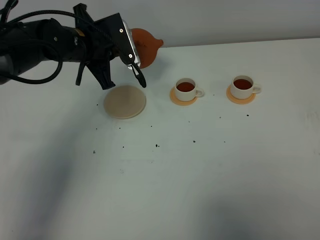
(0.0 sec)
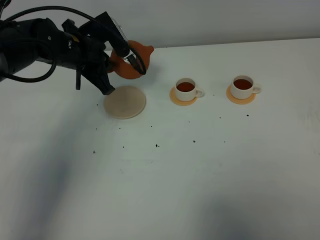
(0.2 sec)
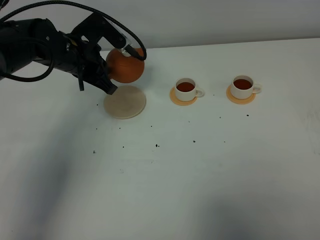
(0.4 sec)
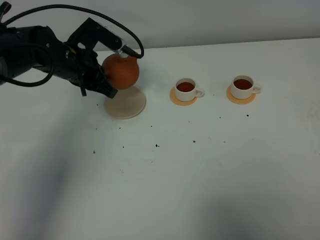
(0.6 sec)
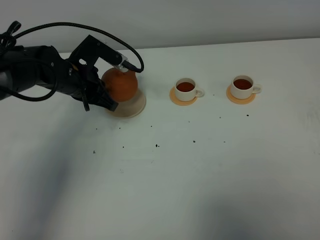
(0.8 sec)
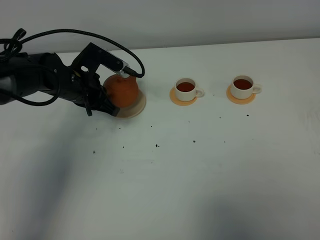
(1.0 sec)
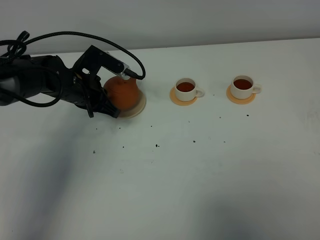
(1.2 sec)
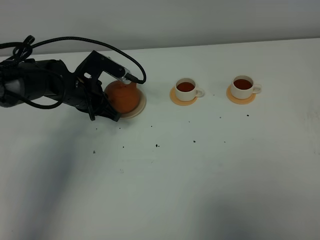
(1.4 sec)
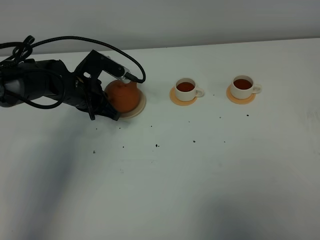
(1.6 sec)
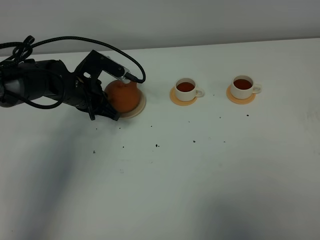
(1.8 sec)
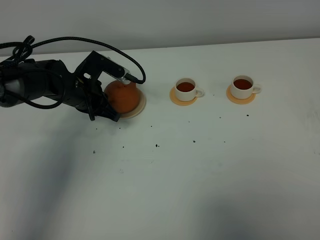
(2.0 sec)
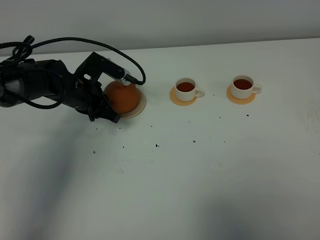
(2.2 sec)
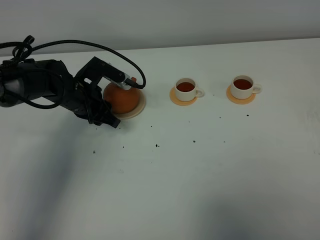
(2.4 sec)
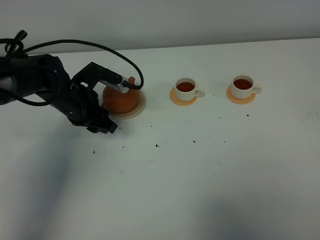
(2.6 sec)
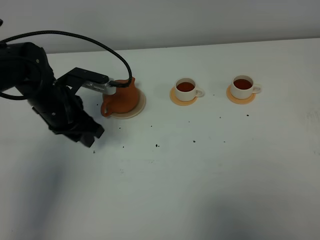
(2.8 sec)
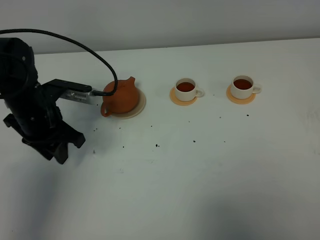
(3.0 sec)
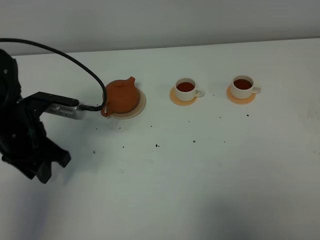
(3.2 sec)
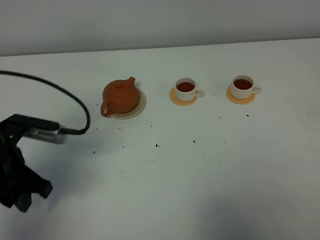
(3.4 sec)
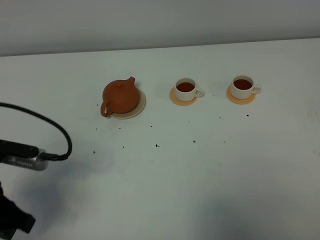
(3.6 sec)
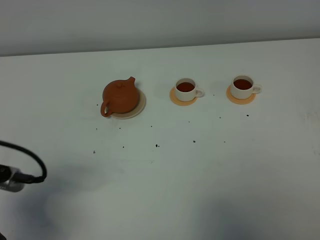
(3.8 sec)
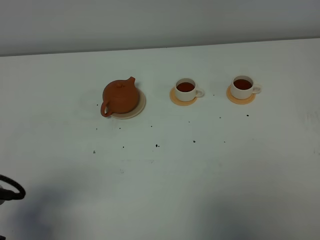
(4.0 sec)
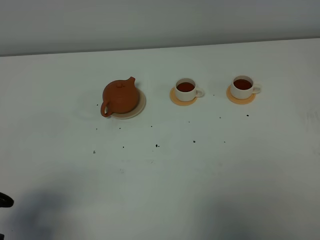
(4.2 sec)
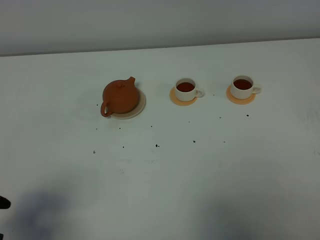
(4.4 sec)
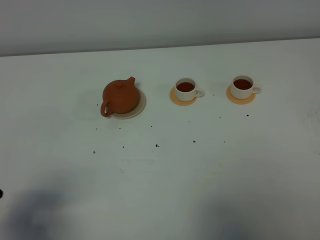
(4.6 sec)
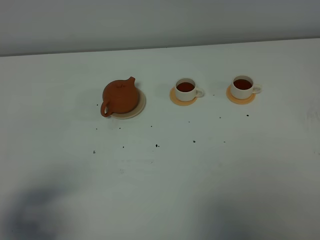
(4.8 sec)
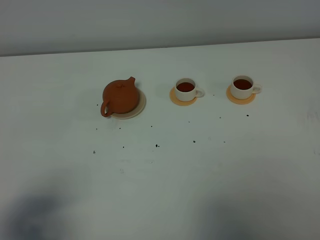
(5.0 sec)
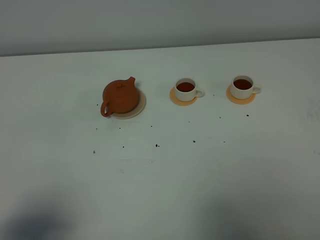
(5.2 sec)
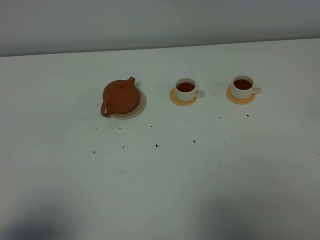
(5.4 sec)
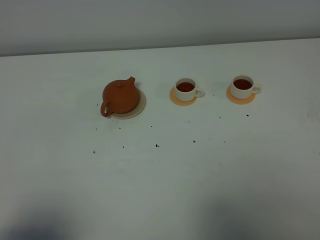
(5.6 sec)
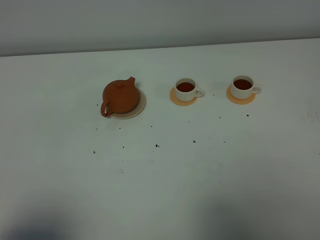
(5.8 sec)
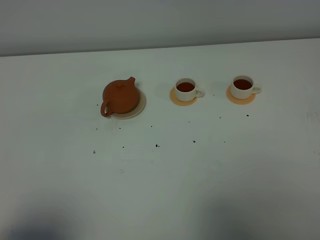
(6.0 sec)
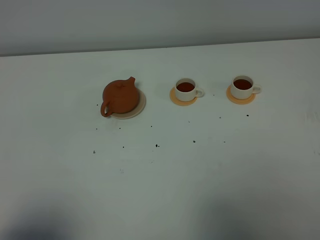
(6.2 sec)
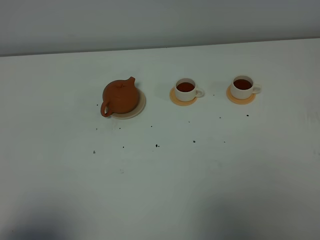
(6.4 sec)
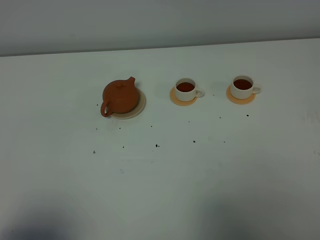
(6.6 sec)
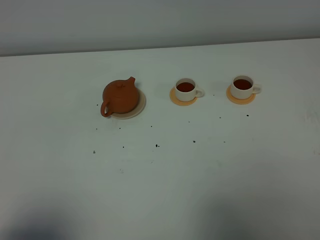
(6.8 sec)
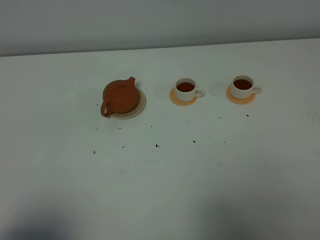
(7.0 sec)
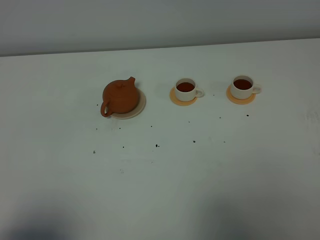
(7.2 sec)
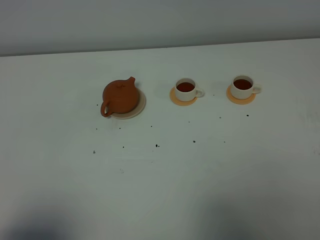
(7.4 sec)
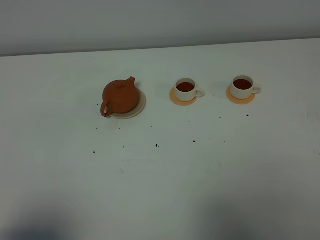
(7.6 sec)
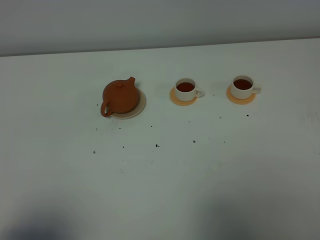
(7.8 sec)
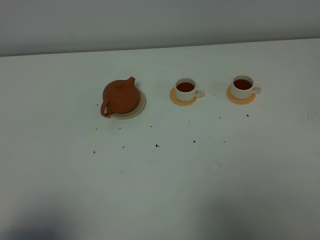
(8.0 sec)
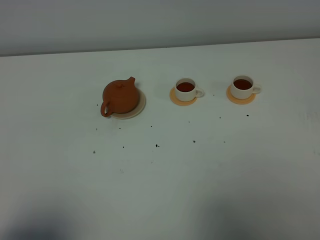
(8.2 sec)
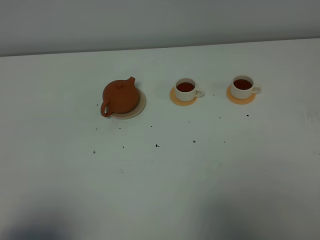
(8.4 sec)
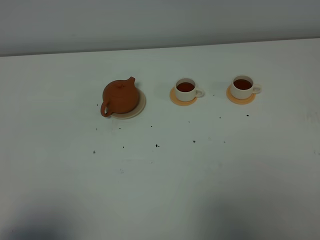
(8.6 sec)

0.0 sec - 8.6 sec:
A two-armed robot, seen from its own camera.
Task of the whole recording: grasp the brown teapot and pour the tea into the two white teacups one by one, put the brown teapot back in its original place.
0.0 sec - 1.4 sec: The left gripper travels downward by some 10 cm.
1.4 sec - 2.8 sec: The left gripper goes some 5 cm backward, and opens its fingers.
2.8 sec - 4.4 sec: The left gripper shifts roughly 30 cm backward, and opens its fingers.
4.4 sec - 5.8 sec: The left gripper moves backward, some 5 cm.
5.8 sec - 8.6 sec: Both grippers stay put.
